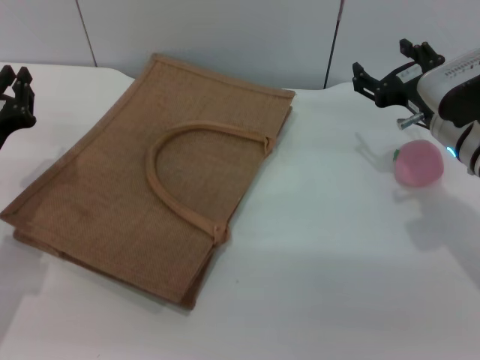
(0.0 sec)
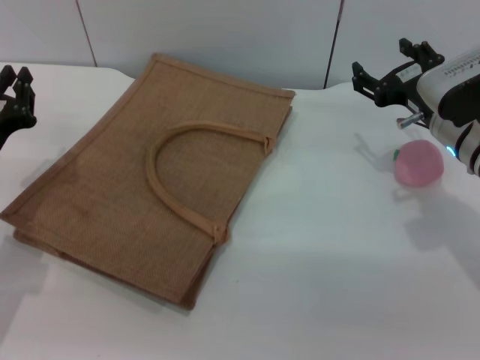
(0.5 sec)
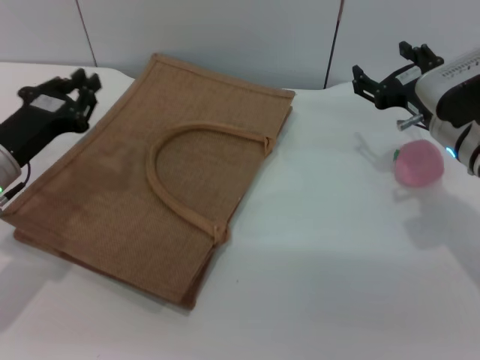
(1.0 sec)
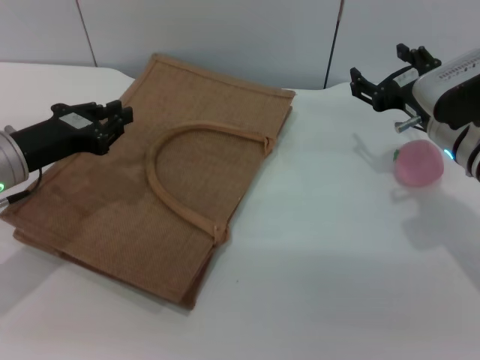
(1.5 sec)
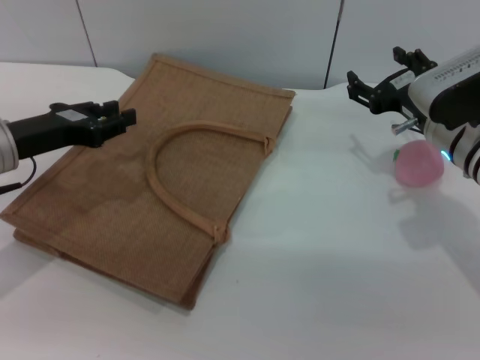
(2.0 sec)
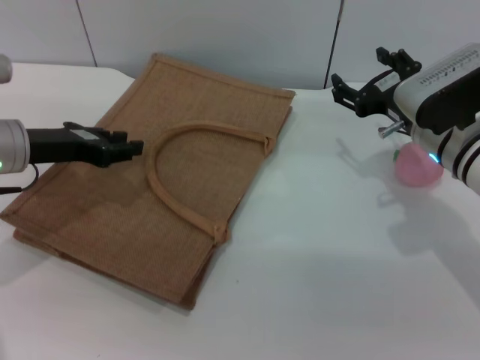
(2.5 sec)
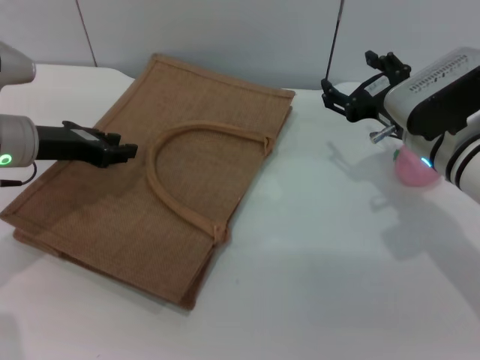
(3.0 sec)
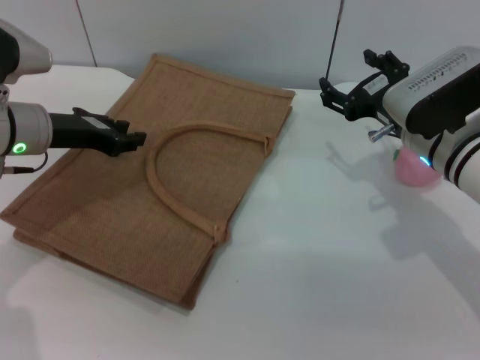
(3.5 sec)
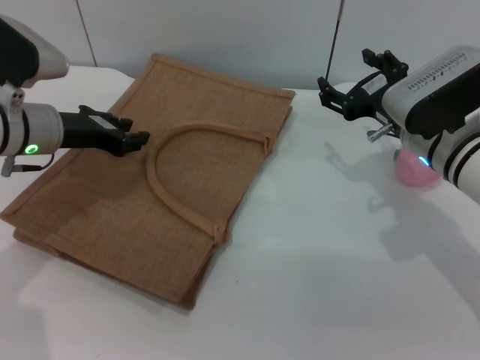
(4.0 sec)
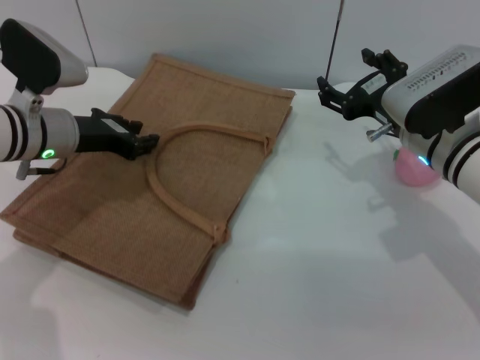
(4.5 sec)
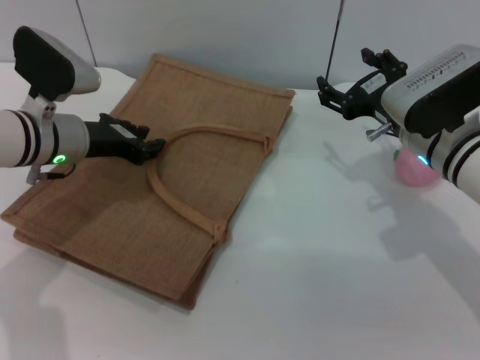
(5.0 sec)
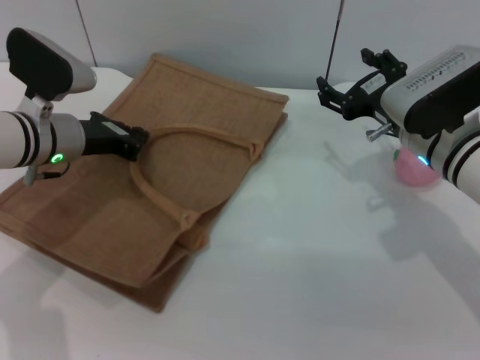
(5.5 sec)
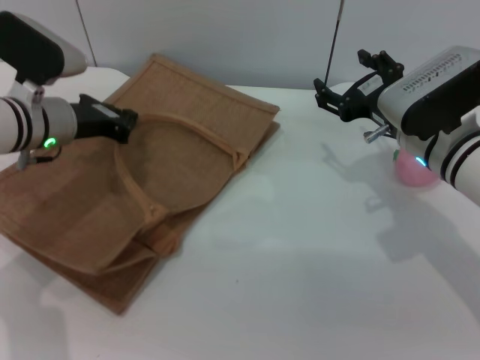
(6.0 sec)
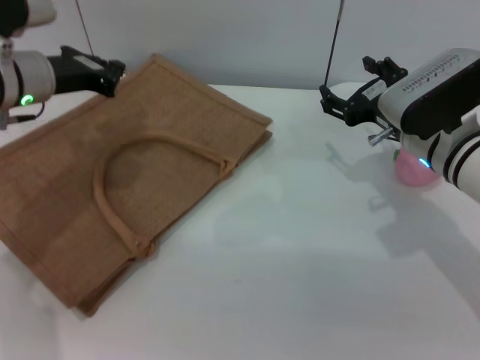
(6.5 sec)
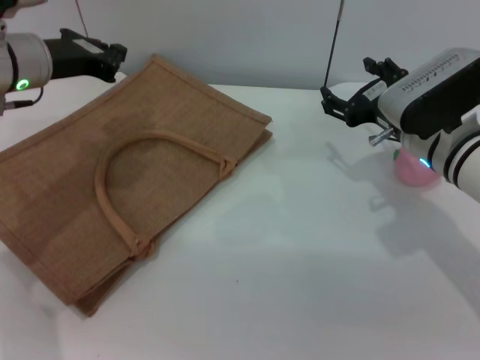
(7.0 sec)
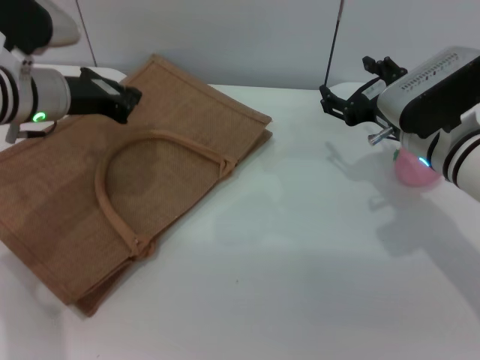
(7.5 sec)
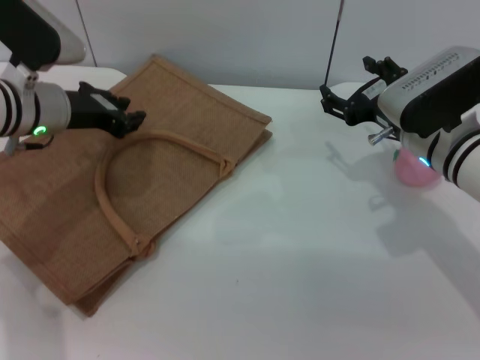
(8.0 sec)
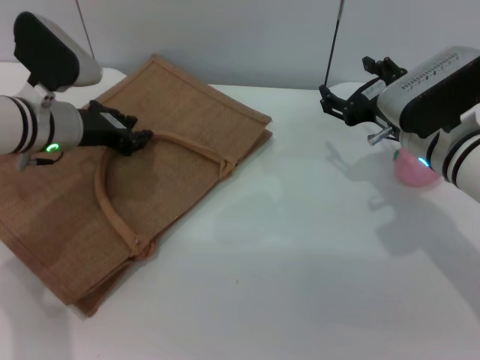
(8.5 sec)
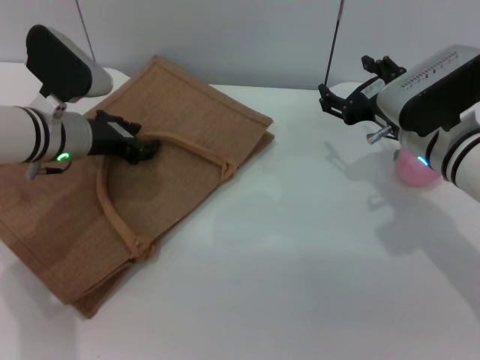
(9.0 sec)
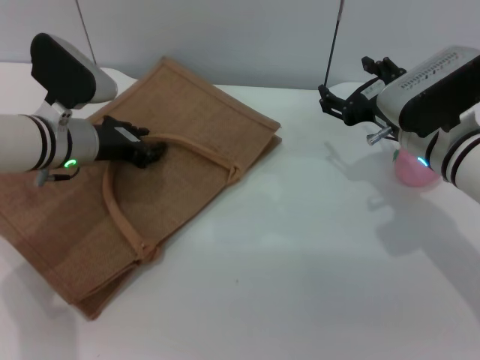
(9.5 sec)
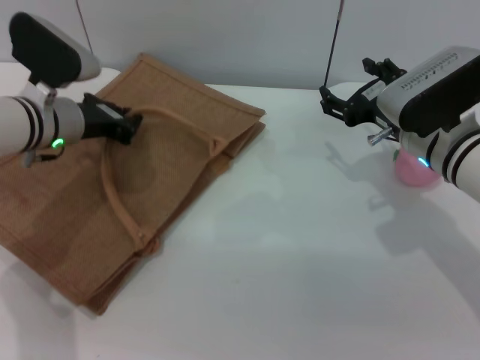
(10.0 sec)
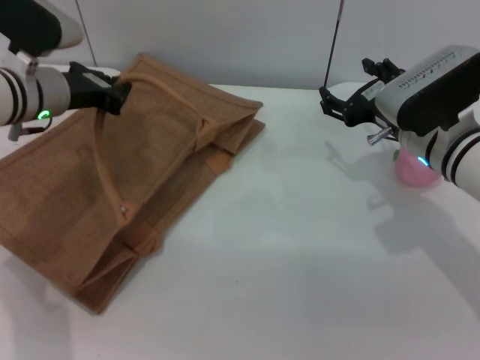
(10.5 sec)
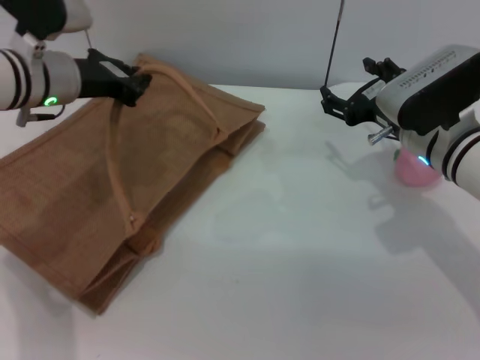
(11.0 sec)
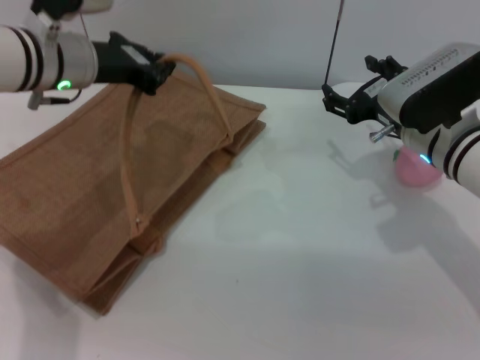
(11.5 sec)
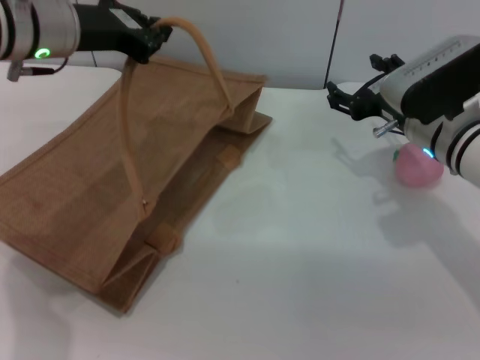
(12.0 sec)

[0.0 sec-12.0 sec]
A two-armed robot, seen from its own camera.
Task of the whole recording: pick up the peach from the table and place it in the brown handbag.
0.0 sec to 2.0 sec: The left gripper changes place by about 5 cm.
2.0 sec to 4.0 sec: The left gripper is displaced forward by some 5 cm.
4.0 sec to 6.0 sec: The left gripper closes up.
8.0 sec to 10.0 sec: The grippers make only small movements.
10.0 sec to 12.0 sec: The left gripper shifts roughly 10 cm upward.

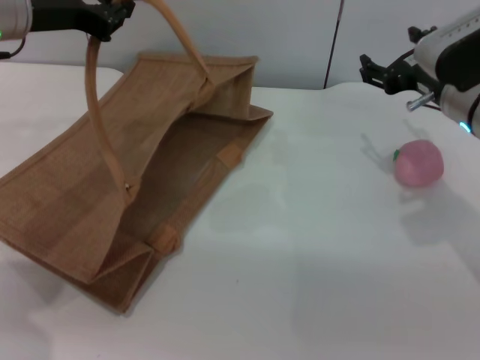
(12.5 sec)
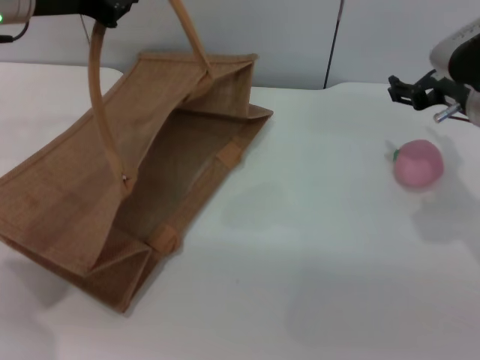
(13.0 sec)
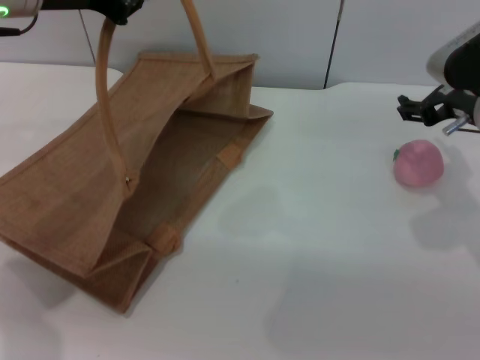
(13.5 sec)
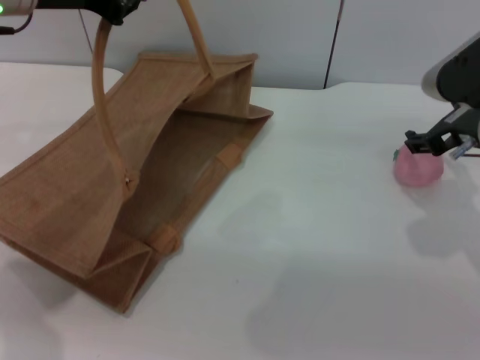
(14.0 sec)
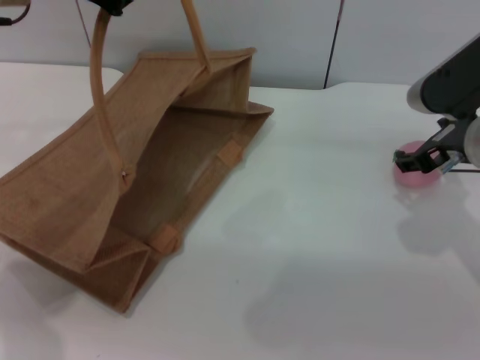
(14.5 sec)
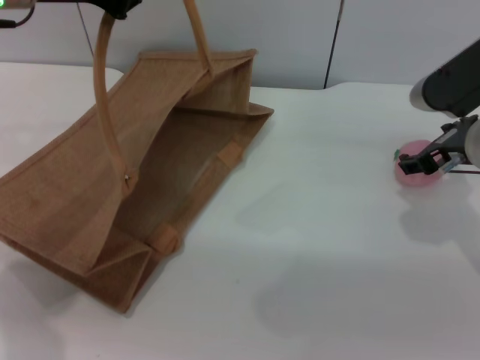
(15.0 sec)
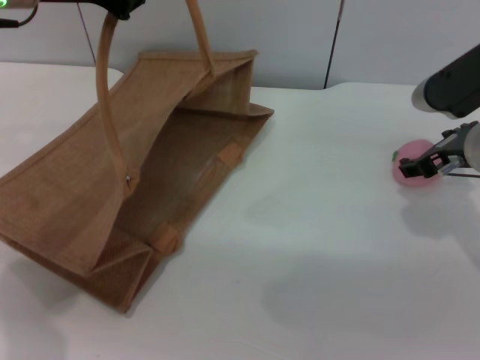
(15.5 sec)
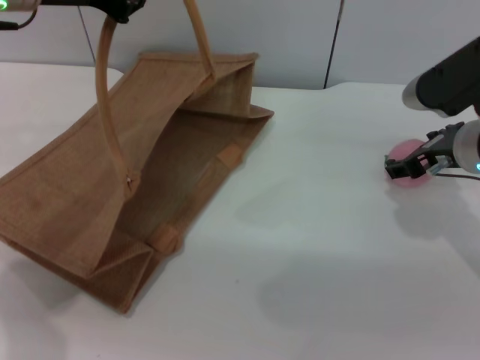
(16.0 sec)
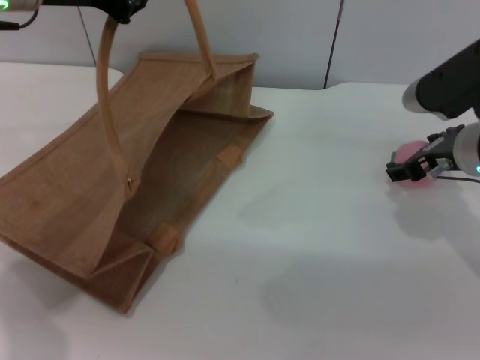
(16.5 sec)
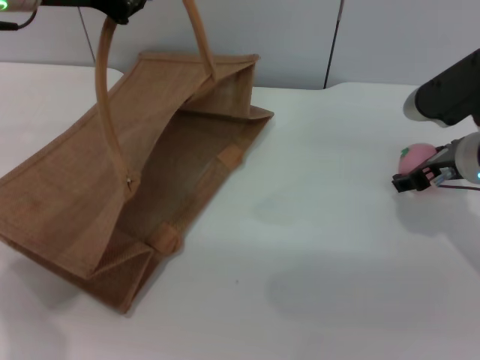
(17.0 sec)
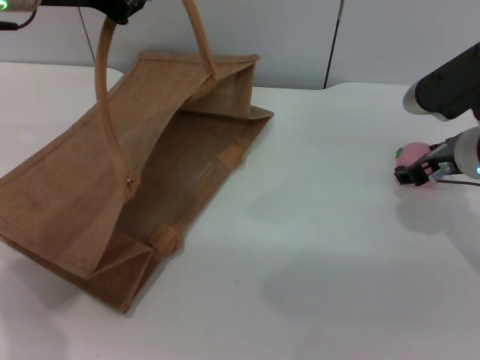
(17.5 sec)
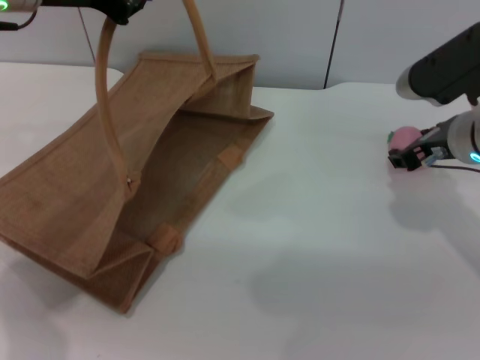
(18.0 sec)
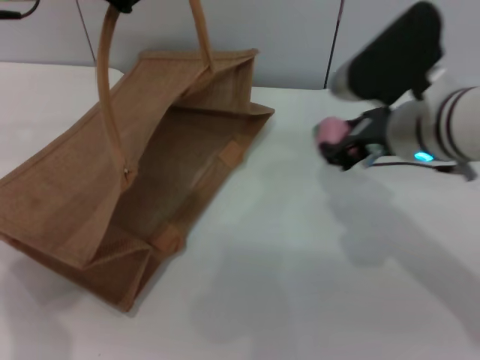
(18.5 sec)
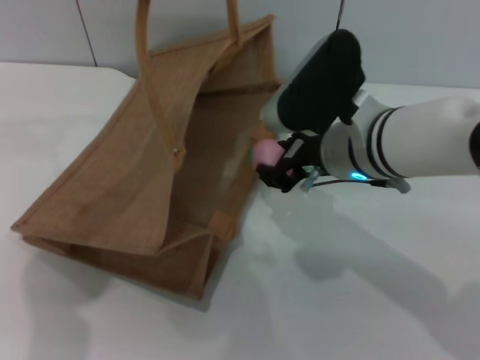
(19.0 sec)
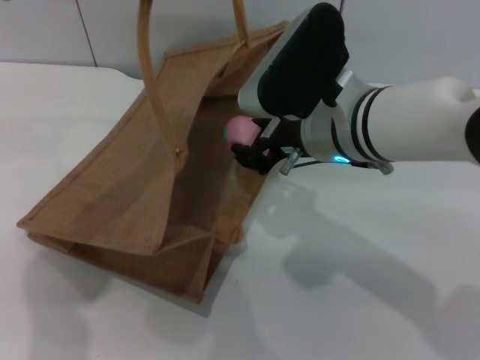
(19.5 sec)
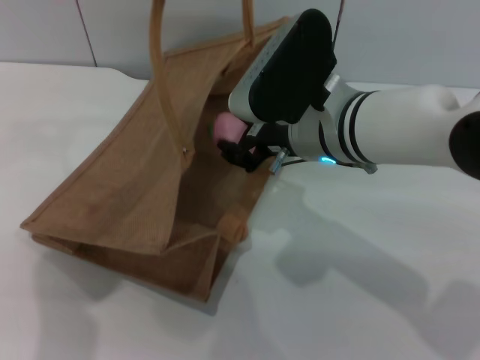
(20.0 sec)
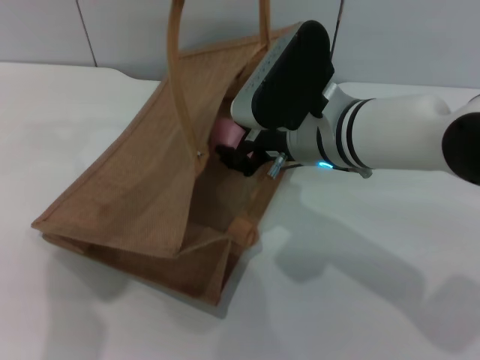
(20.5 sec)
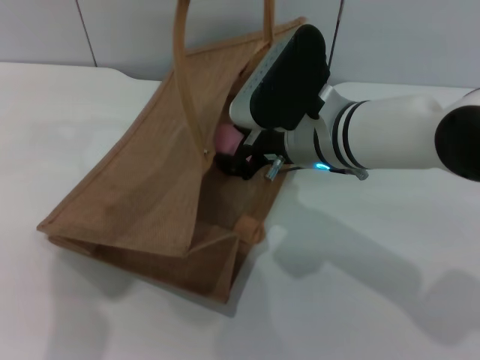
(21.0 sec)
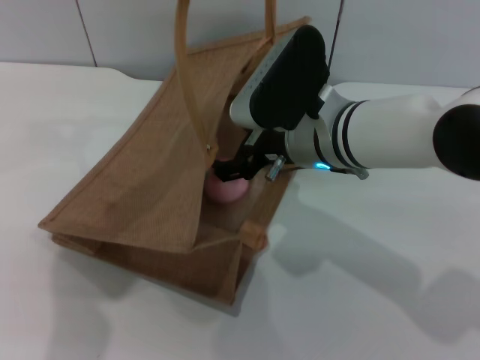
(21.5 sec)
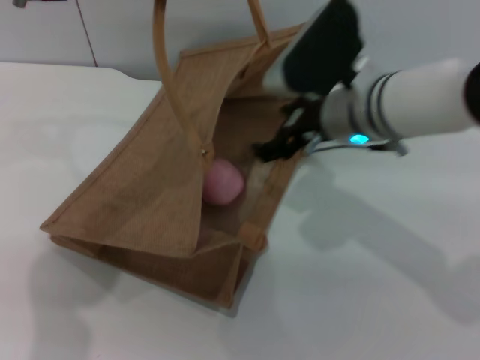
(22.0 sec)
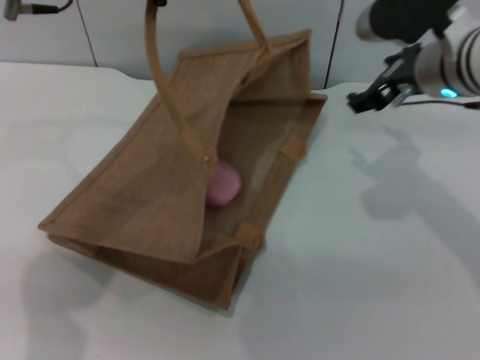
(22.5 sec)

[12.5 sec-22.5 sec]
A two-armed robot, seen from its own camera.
Task of the whole recording: pick up the peach from the table and place it in the brown handbag.
Step, 12.5 sec to 18.0 sec: Pick up the peach with the right gripper.
Step, 18.5 sec to 22.0 sec: Place the peach into the woven bag with the right gripper.
14.5 sec to 16.5 sec: The grippers move only a little.
16.5 sec to 18.5 sec: The right gripper heads to the left, covering roughly 5 cm, and closes its fingers.
18.5 sec to 20.5 sec: The right gripper moves to the left, approximately 10 cm. Meanwhile the left gripper shifts about 5 cm to the right.
20.5 sec to 22.5 sec: The right gripper travels to the right and forward by about 10 cm, and opens its fingers.

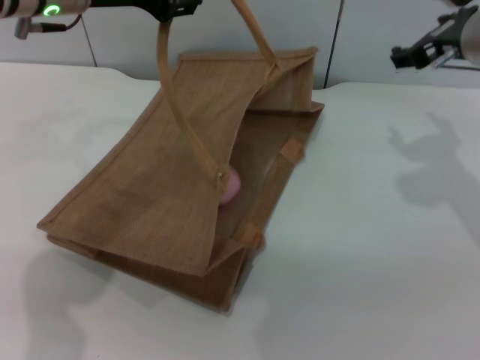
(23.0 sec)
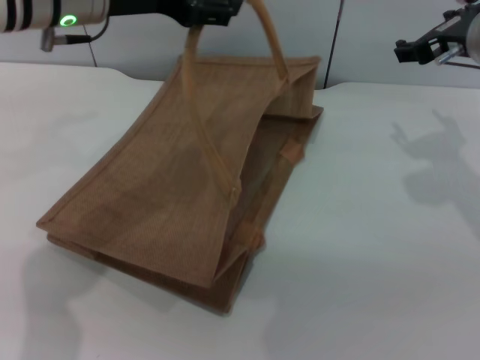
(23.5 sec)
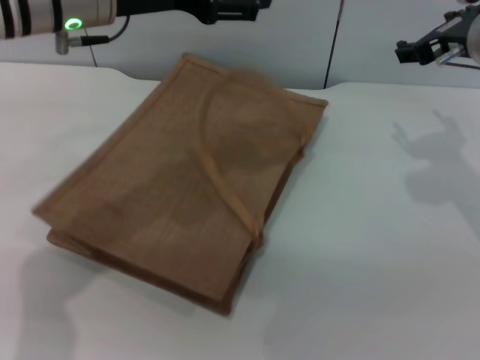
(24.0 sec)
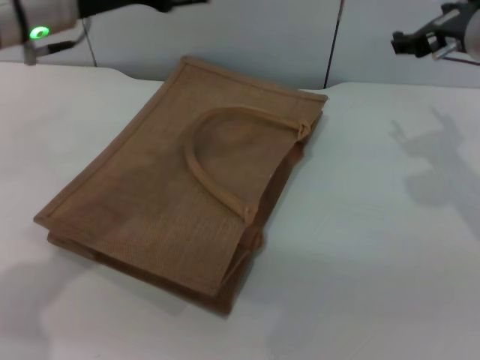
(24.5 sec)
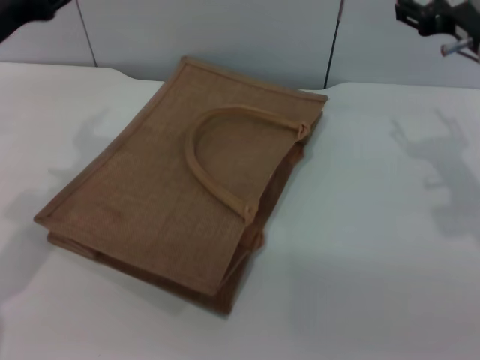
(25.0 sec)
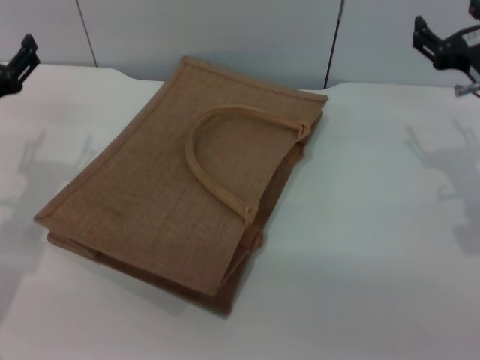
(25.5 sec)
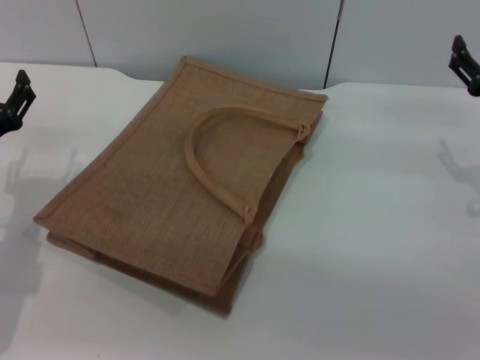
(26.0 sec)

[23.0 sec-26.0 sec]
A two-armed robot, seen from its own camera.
Task of the whole recording: pick up the peach from the table and place it in the brown handbag.
Step, 23.0 sec to 24.5 sec: Lower the woven bag with the left gripper to close it.
23.0 sec to 24.5 sec: The left gripper opens up.
24.5 sec to 26.0 sec: The right gripper heads downward, to the right and backward, covering approximately 15 cm; the left gripper shifts approximately 20 cm downward, to the left and backward.
